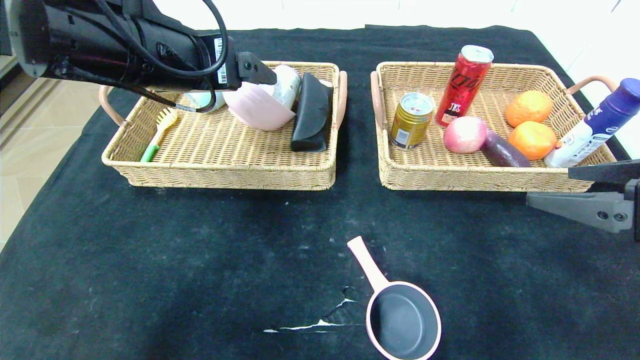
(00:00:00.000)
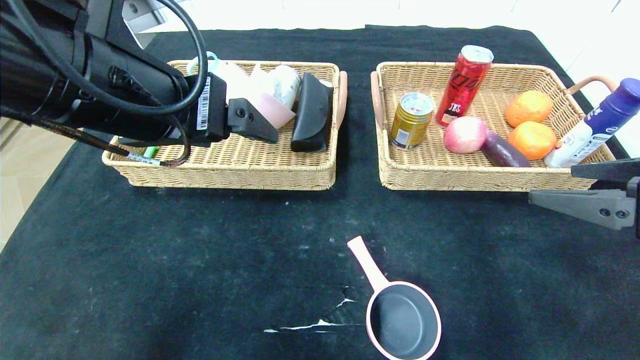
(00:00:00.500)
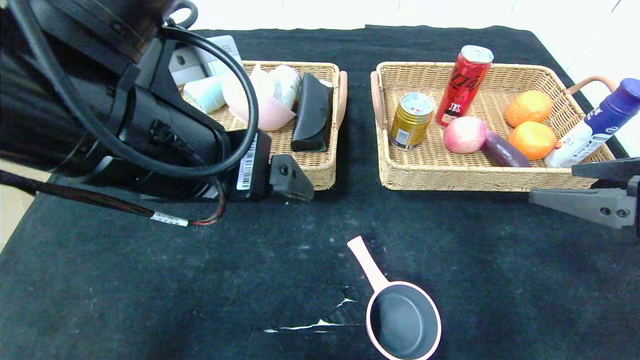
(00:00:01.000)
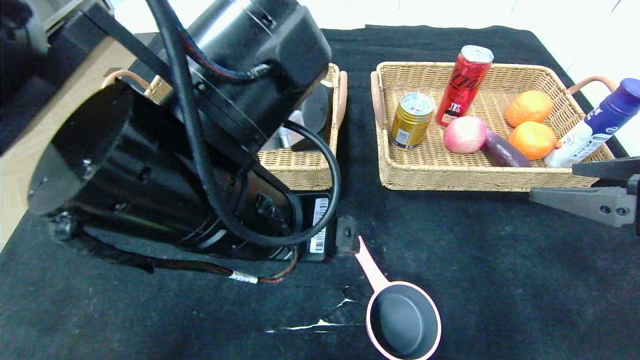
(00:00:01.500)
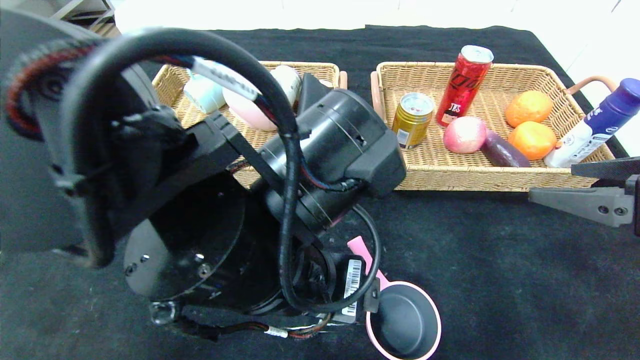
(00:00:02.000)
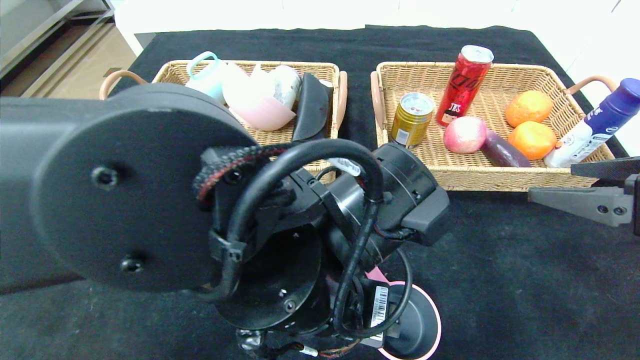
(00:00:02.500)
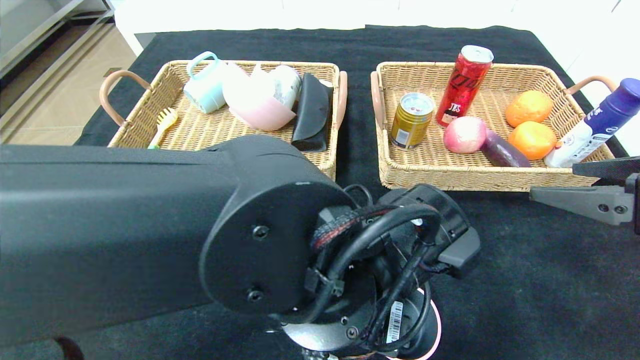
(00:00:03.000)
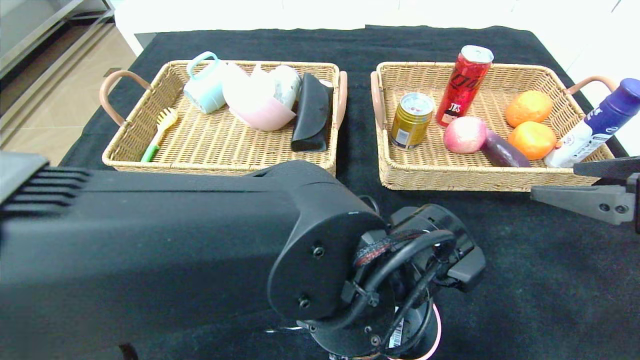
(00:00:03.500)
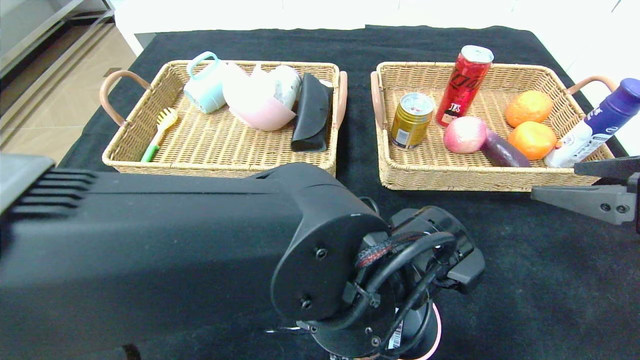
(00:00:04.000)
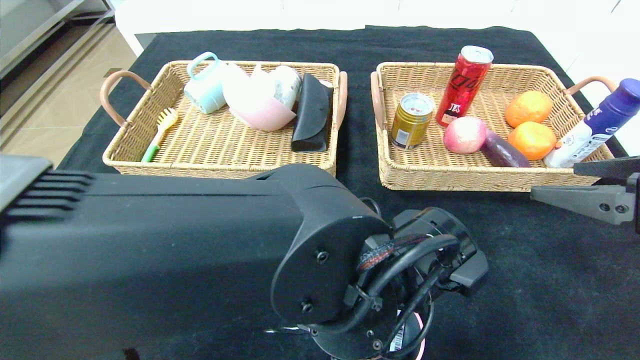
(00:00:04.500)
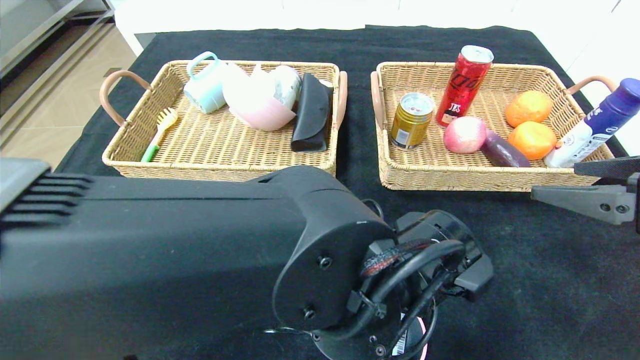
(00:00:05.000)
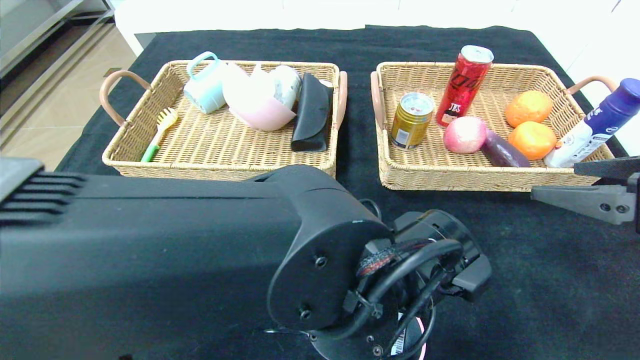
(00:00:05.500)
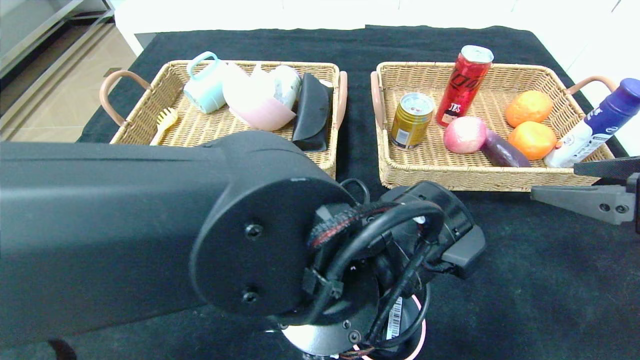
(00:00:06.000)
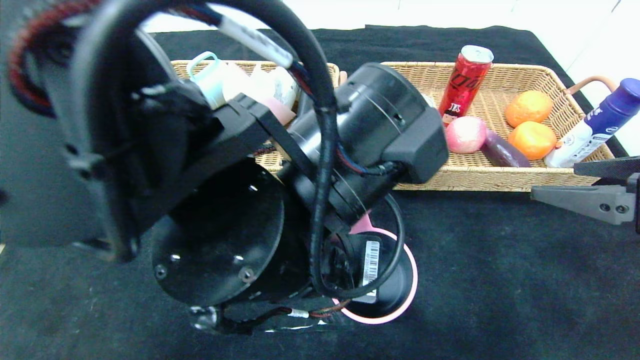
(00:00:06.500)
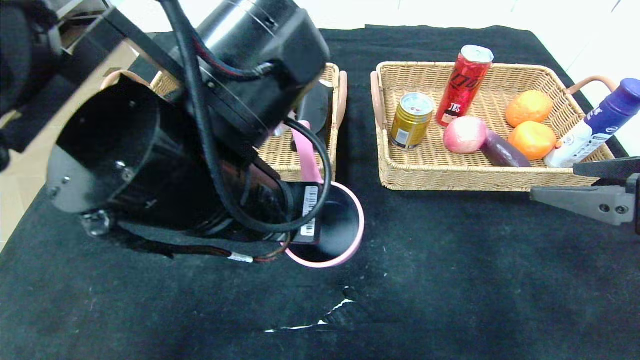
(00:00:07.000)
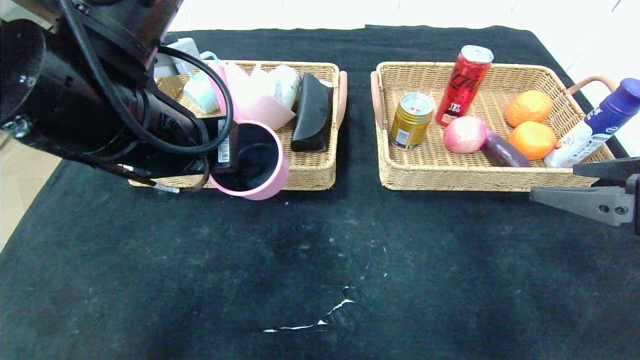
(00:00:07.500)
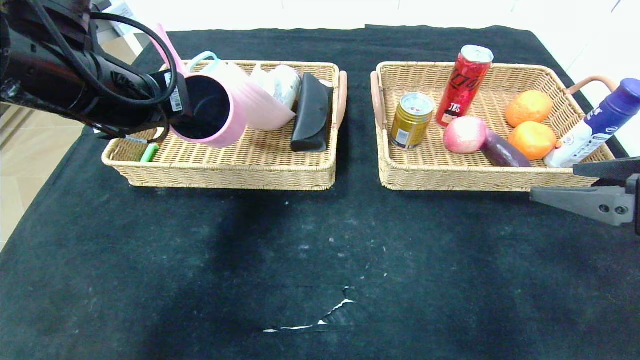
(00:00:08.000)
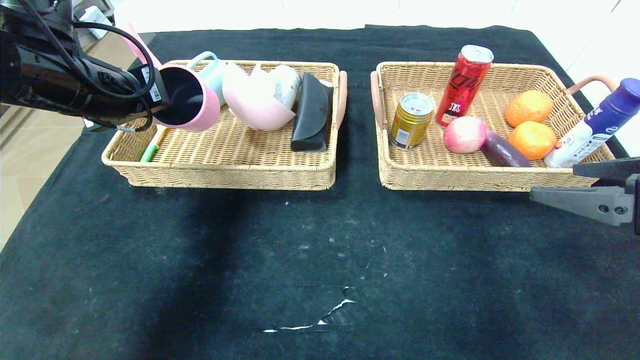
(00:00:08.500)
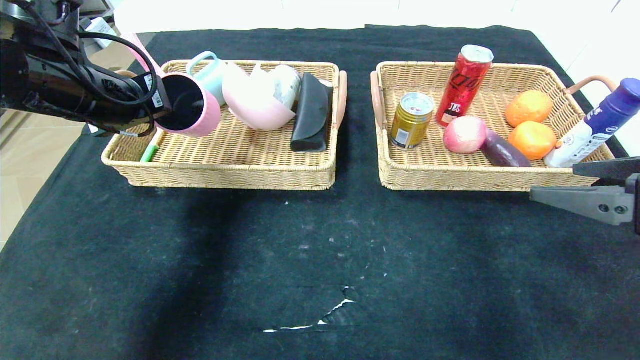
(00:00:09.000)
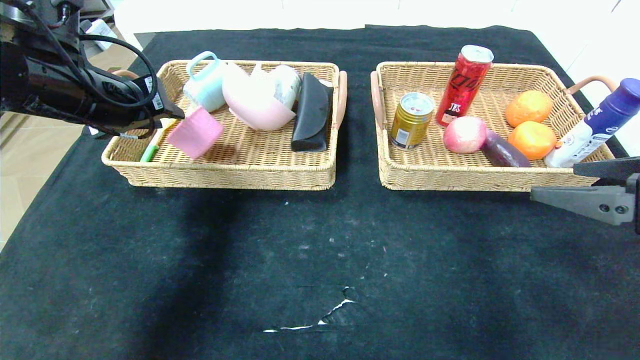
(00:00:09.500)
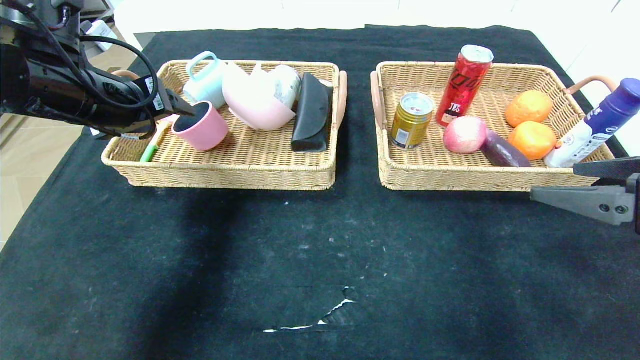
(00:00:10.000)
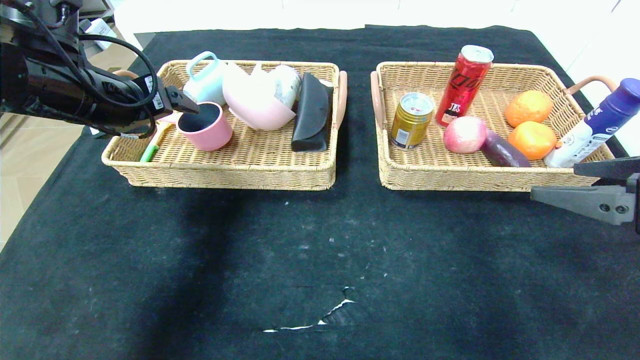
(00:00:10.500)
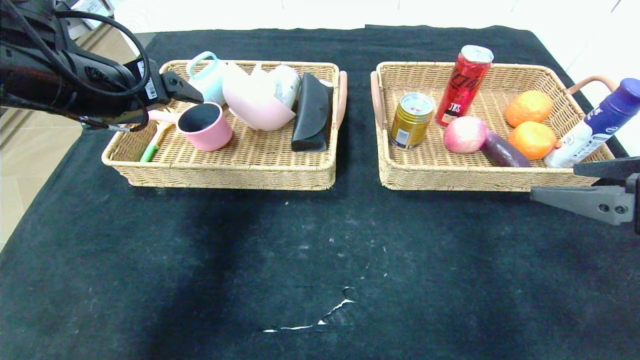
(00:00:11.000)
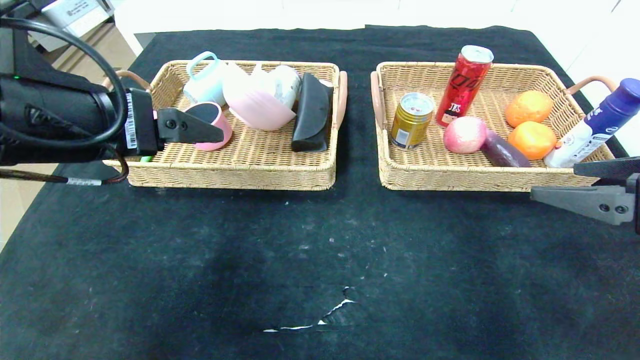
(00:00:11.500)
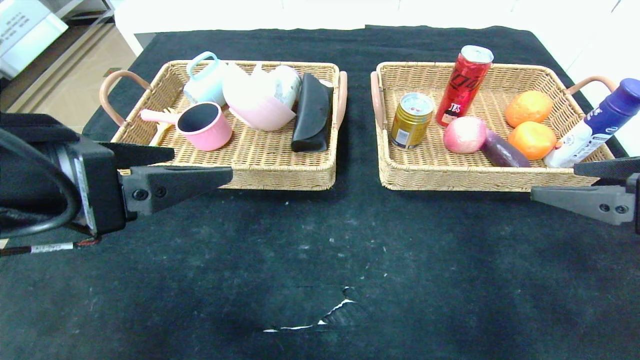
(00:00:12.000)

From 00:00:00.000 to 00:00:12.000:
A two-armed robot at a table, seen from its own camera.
From 00:00:00.000 to 00:00:02.000: The left gripper goes some 20 cm to the right, backward and downward.
From 00:00:02.000 to 00:00:04.000: The left gripper heads downward and to the right, covering some 10 cm.
From 00:00:04.000 to 00:00:06.000: The left gripper closes up.
From 00:00:06.000 to 00:00:08.000: The left gripper goes approximately 30 cm to the left, upward and forward.
From 00:00:08.000 to 00:00:10.000: The left gripper travels to the left by about 5 cm, and opens.
From 00:00:10.000 to 00:00:12.000: The left gripper goes roughly 15 cm backward.

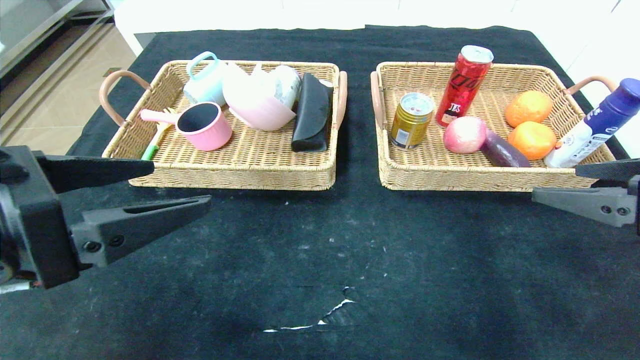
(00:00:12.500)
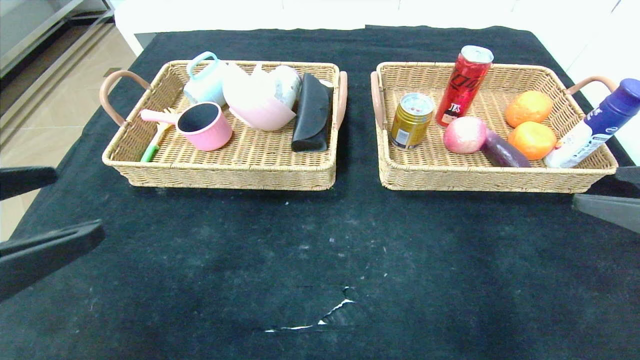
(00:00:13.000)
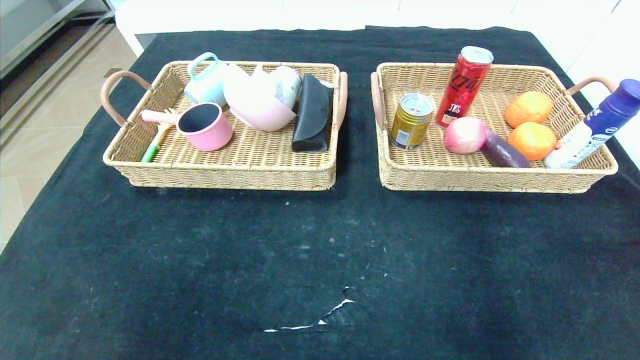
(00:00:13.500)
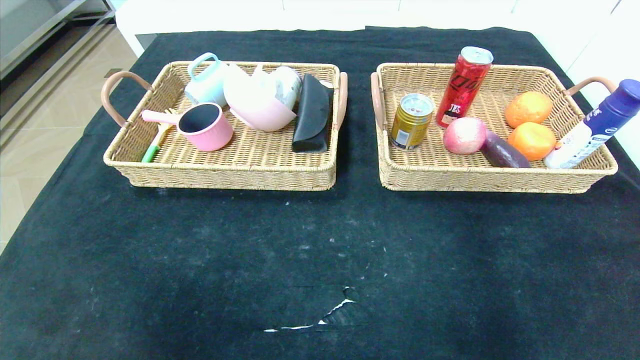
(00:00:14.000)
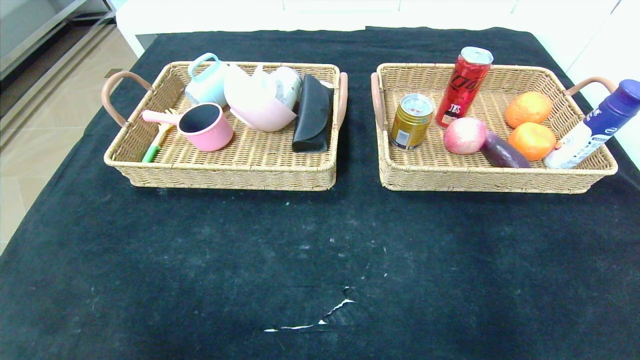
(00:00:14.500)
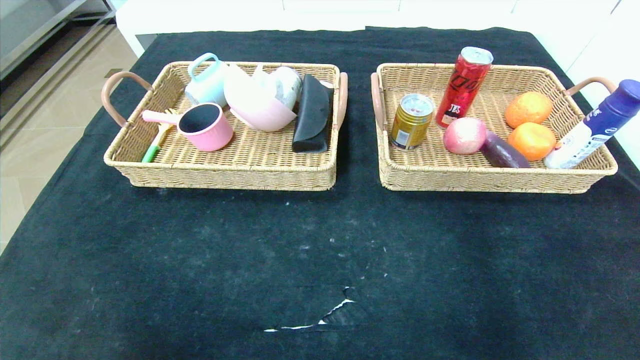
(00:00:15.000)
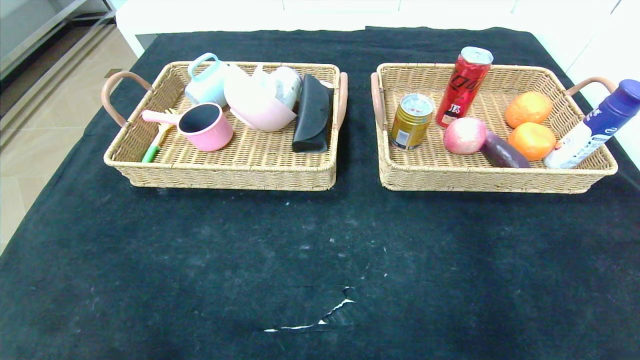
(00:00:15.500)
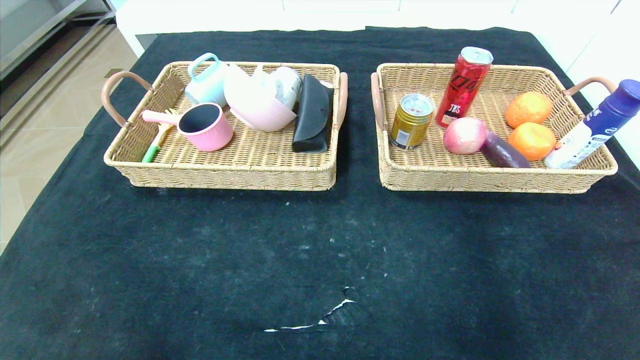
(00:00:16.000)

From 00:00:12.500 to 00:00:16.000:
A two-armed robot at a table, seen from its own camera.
From 00:00:12.500 to 00:00:14.500: The grippers both shift backward and downward by some 25 cm.

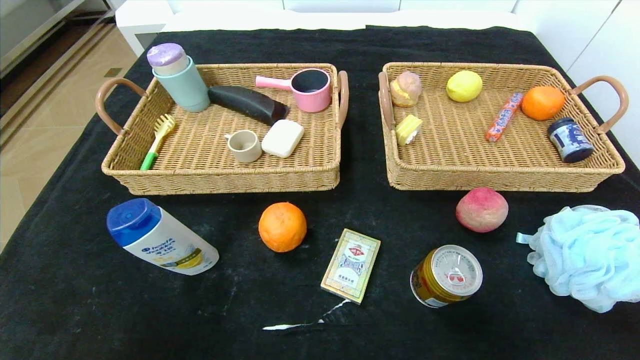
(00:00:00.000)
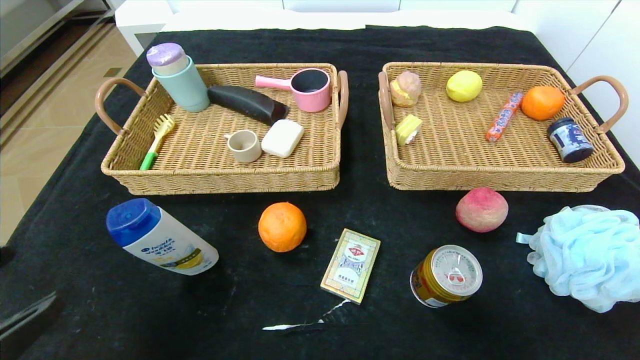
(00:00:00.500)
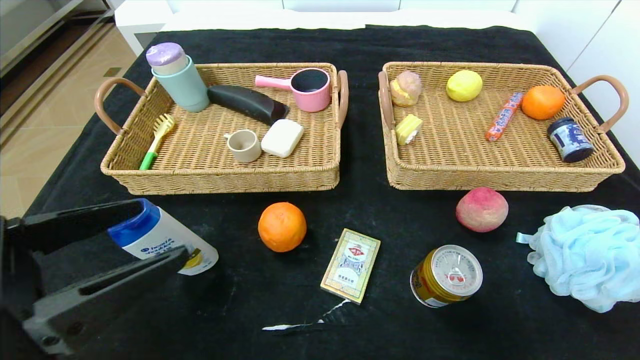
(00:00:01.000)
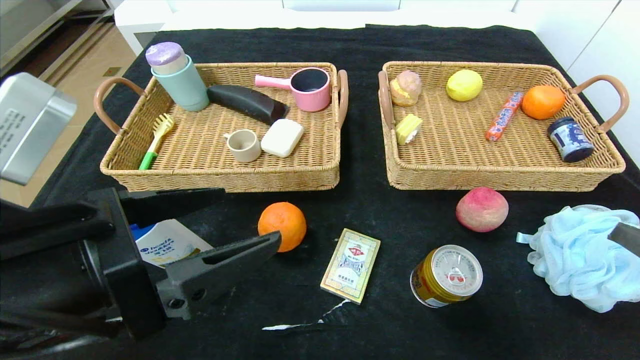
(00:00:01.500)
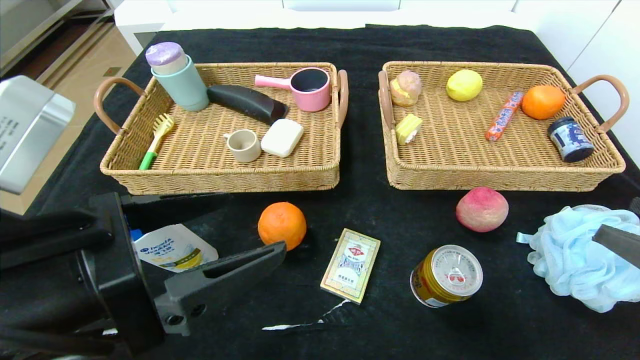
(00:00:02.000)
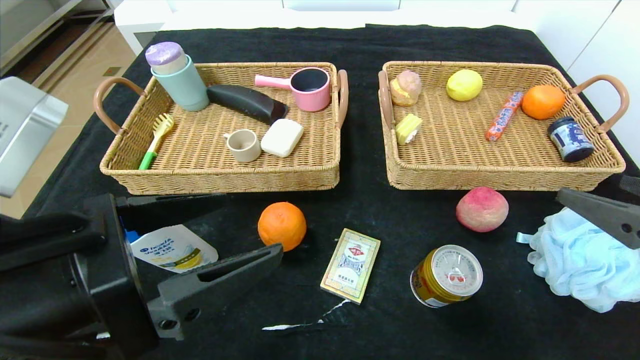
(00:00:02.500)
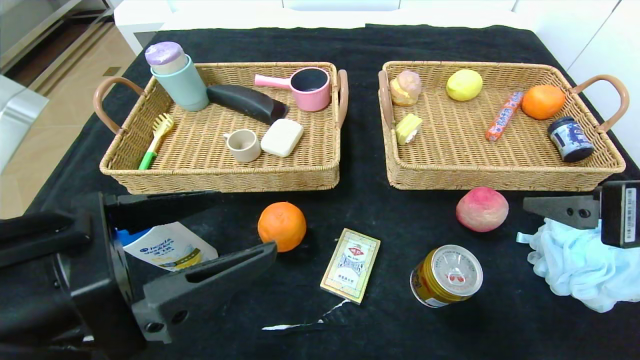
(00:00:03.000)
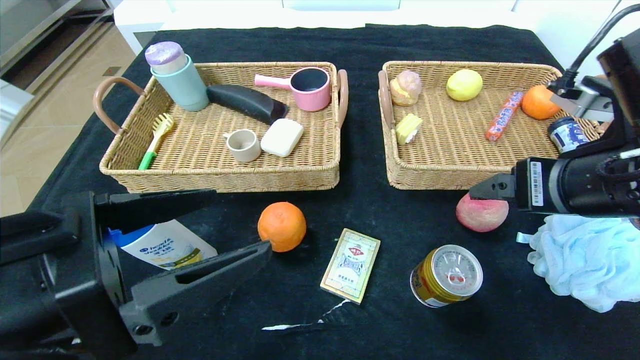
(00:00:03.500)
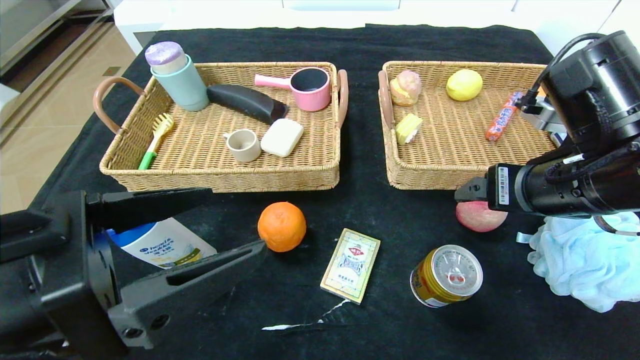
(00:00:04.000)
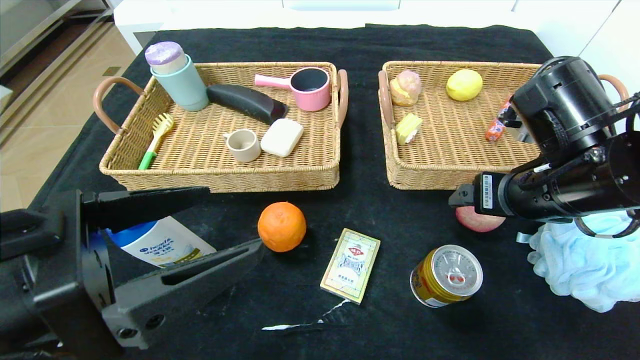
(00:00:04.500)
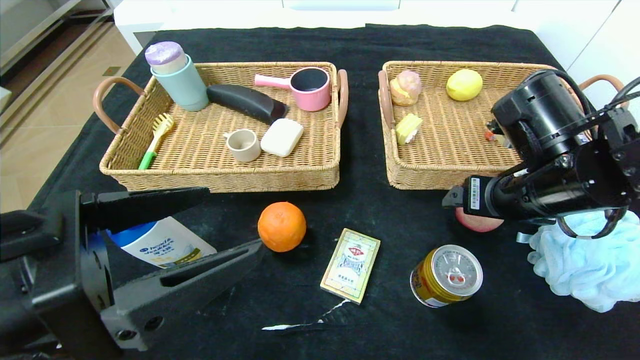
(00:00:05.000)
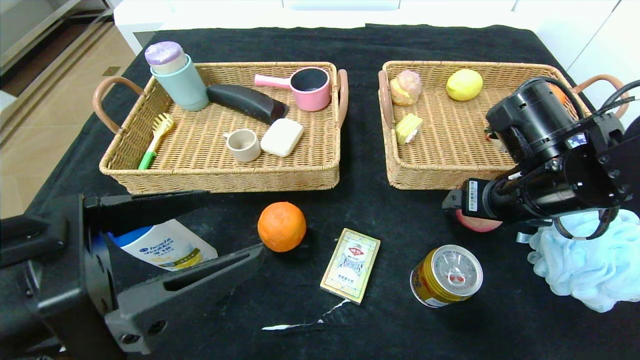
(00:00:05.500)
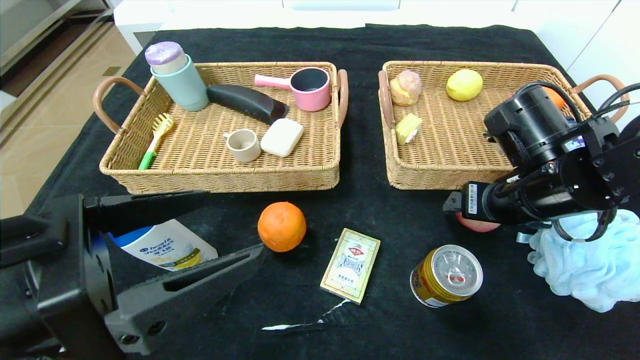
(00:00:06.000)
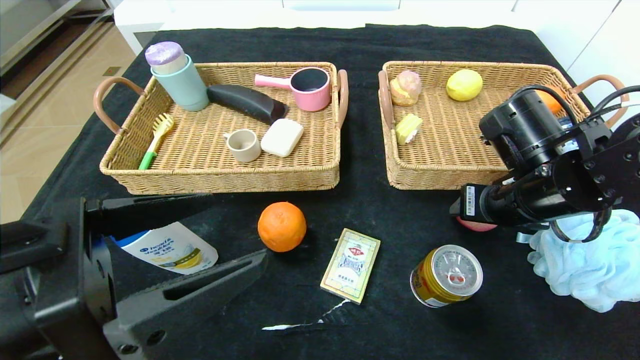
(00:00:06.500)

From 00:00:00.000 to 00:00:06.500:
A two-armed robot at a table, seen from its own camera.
From 00:00:00.000 to 00:00:02.000: The right gripper shifts roughly 15 cm forward and upward, while the left gripper moves forward, upward and to the right, about 25 cm.
From 00:00:02.000 to 00:00:04.500: The right gripper heads forward and to the left, covering about 20 cm.
From 00:00:04.500 to 00:00:06.500: The right gripper closes its fingers.
